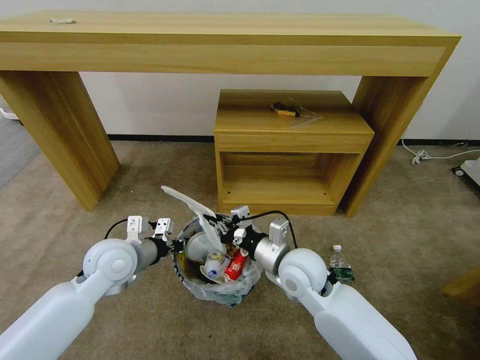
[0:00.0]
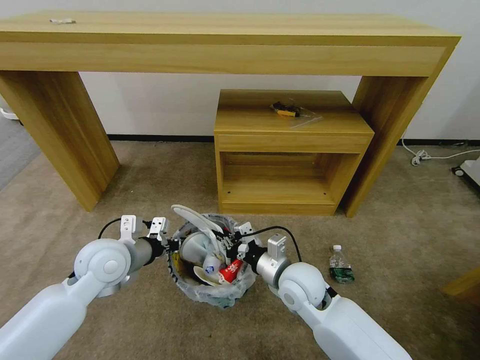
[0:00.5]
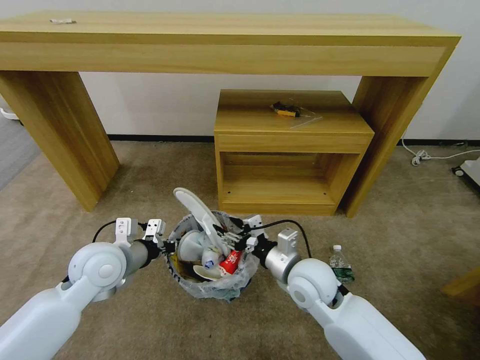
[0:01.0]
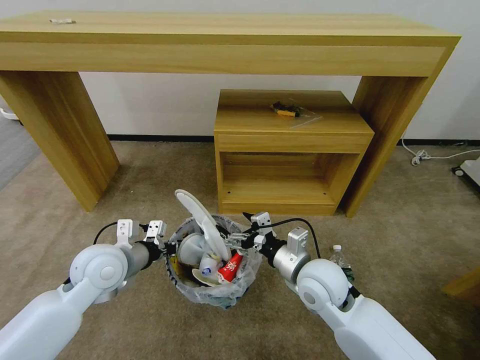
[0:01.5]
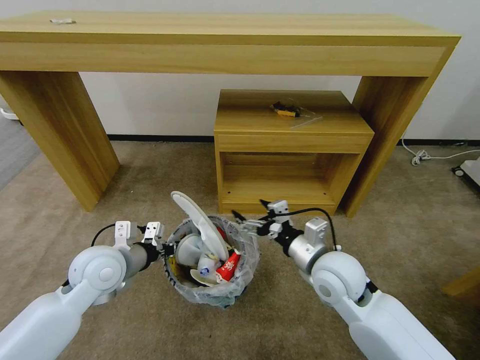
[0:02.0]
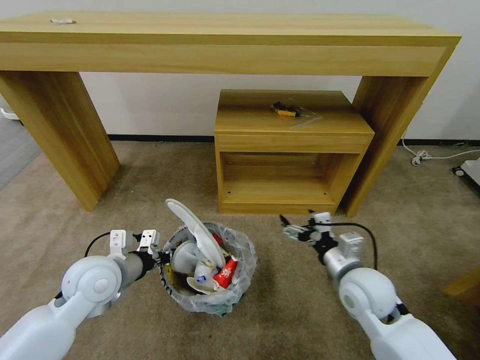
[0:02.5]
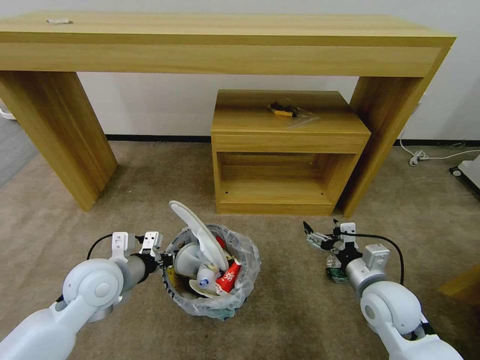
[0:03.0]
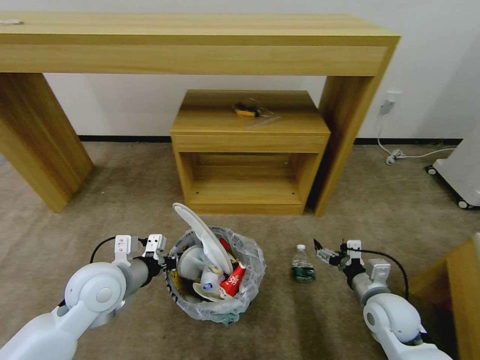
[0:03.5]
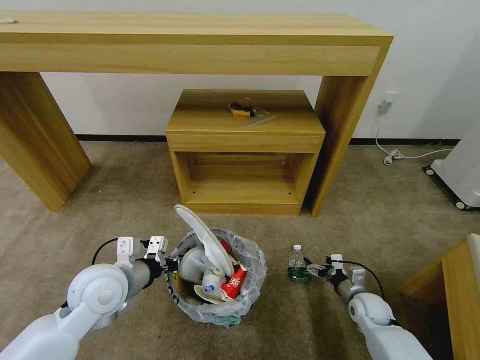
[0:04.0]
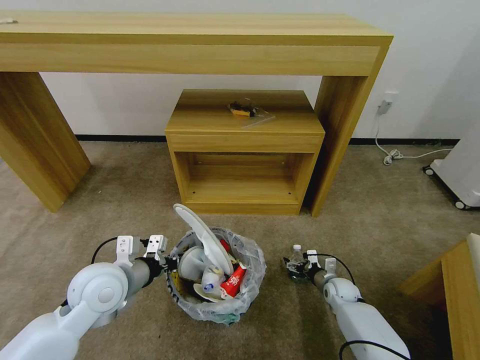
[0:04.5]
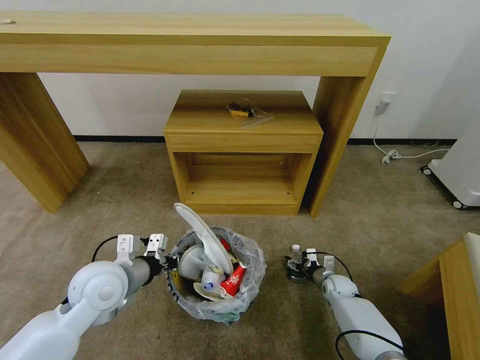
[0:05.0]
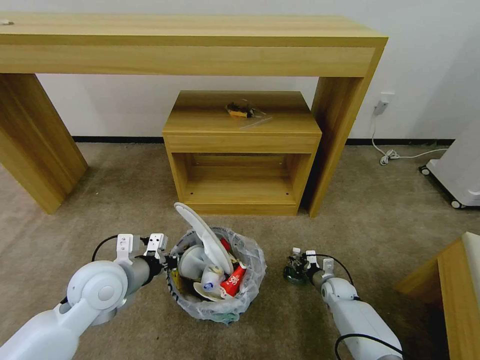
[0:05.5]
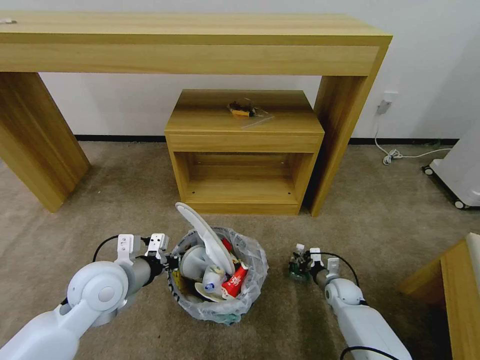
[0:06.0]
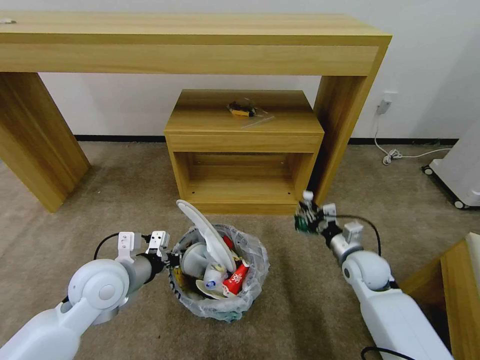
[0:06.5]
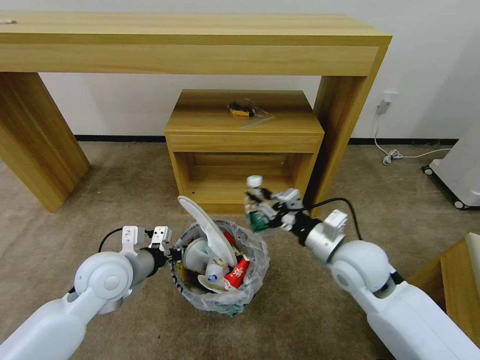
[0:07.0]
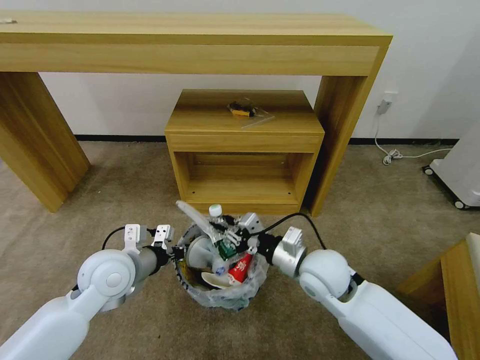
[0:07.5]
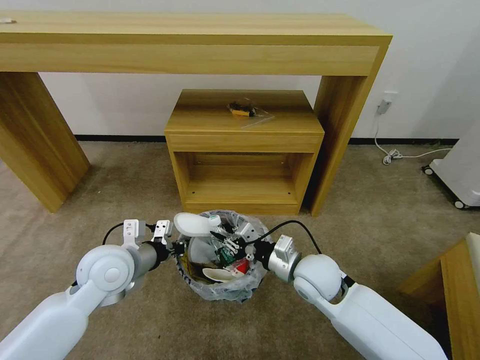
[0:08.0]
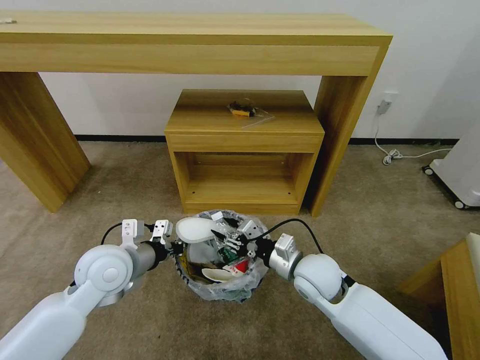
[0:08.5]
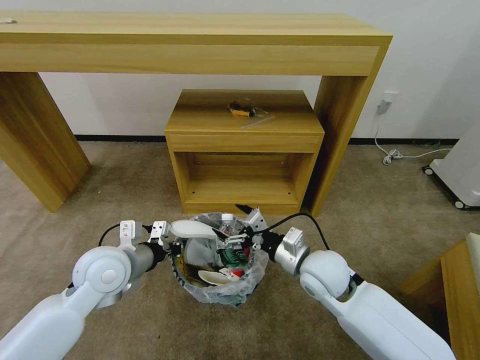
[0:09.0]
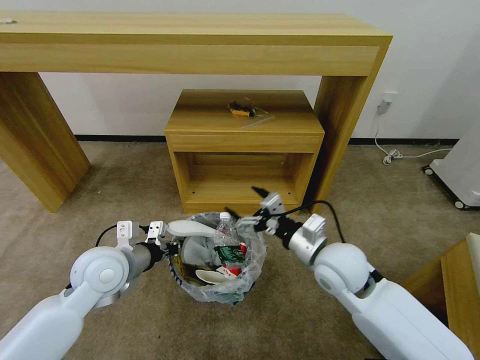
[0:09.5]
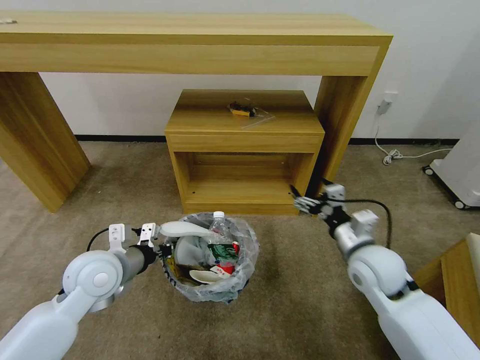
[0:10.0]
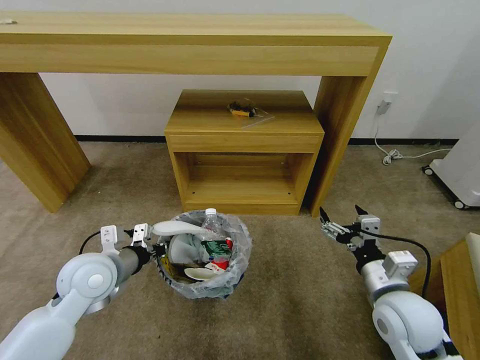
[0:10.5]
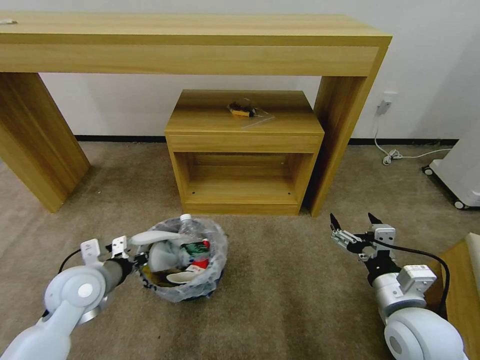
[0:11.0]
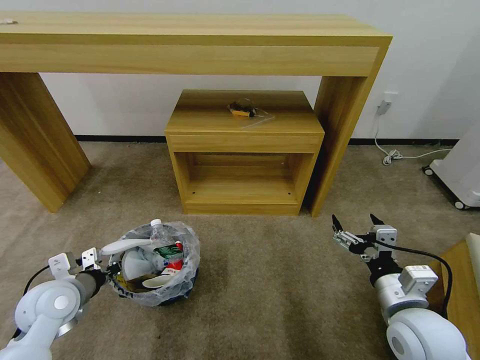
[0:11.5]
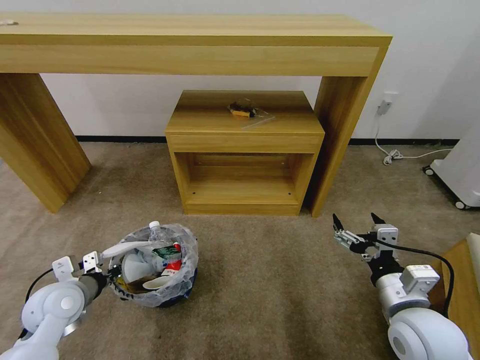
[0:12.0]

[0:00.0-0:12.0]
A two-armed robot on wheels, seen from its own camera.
Task of the whole recording: Pick up the trash bin and place the garbage on the floor into it.
0.0 to 2.0 s: The right gripper shifts some 5 cm to the right, and opens its fingers.
2.0 to 4.0 s: The right gripper heads downward and to the right, covering approximately 30 cm.
4.0 to 6.0 s: The right gripper heads forward, covering some 5 cm, and closes.
6.0 to 8.0 s: The right gripper travels upward and to the left by some 25 cm.
8.0 to 10.0 s: The right gripper is displaced to the right by about 10 cm, and opens up.
10.0 to 12.0 s: The right gripper heads backward, covering roughly 10 cm, while the left gripper moves to the left and downward, some 10 cm.

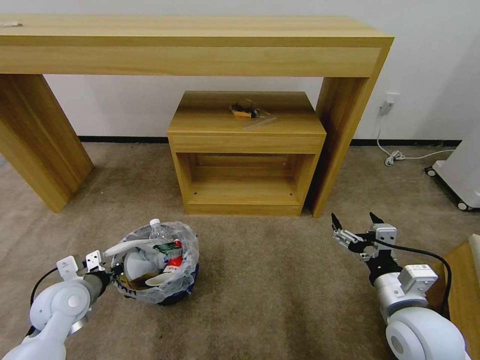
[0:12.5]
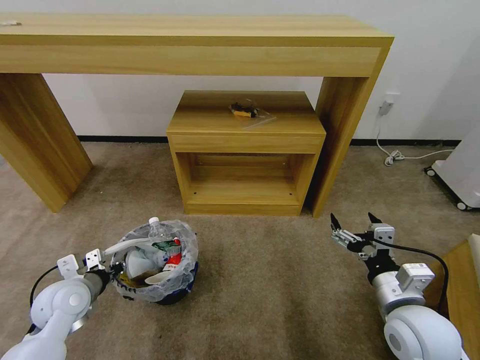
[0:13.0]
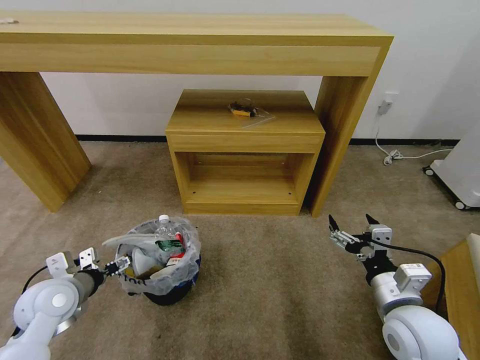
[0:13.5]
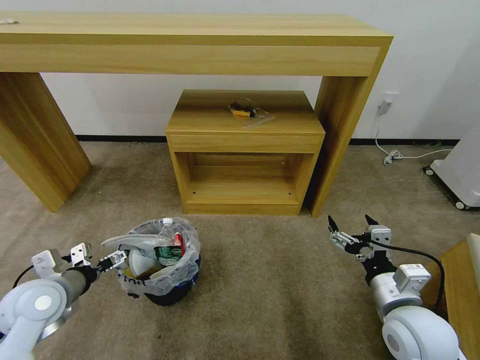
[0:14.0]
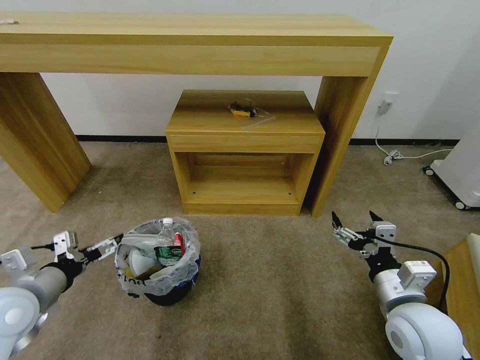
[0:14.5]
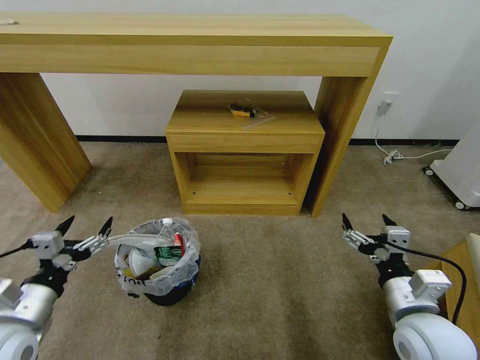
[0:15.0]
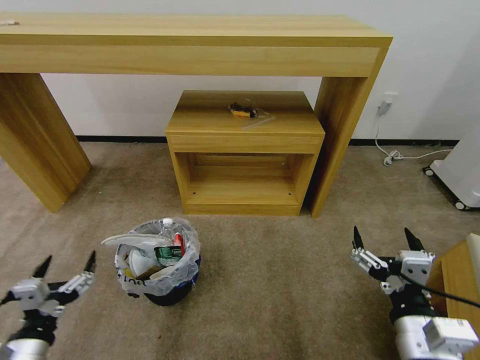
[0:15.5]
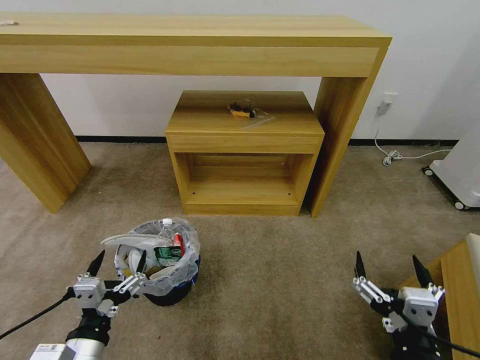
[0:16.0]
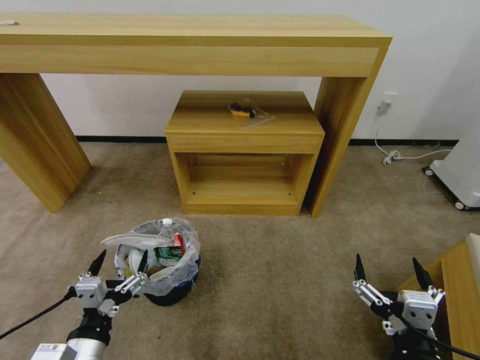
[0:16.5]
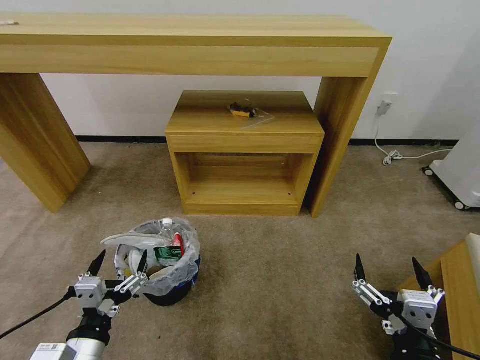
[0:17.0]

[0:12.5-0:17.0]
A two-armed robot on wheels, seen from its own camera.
Task of the whole recording: Pick up the trash bin and place the garbage on the floor into it.
12.5 to 14.5 s: The left gripper goes approximately 10 cm upward, and opens.
14.5 to 17.0 s: The right gripper travels backward and to the left by roughly 15 cm; the left gripper heads backward, to the right and downward, covering roughly 20 cm.

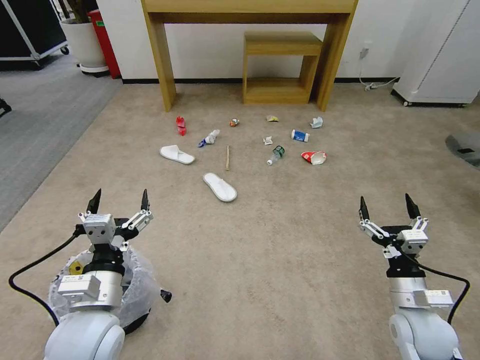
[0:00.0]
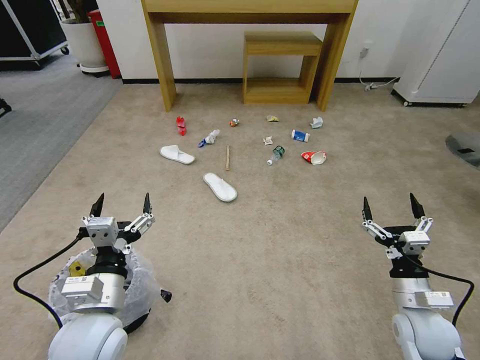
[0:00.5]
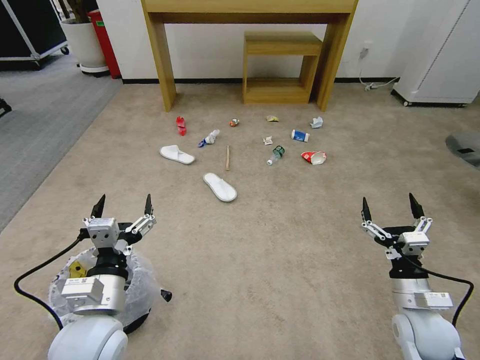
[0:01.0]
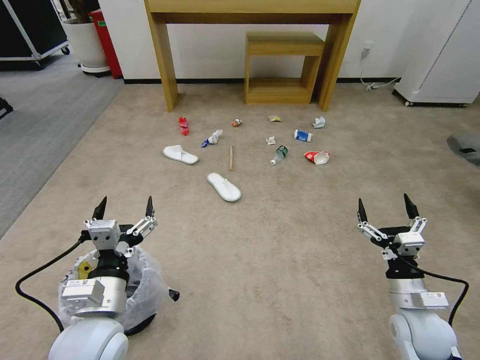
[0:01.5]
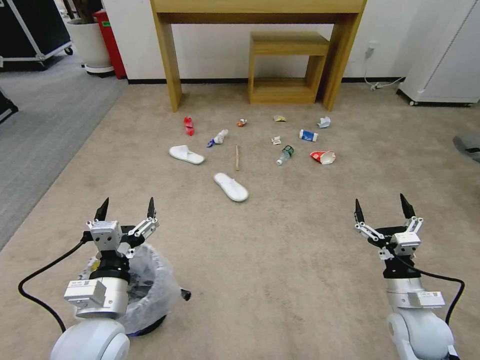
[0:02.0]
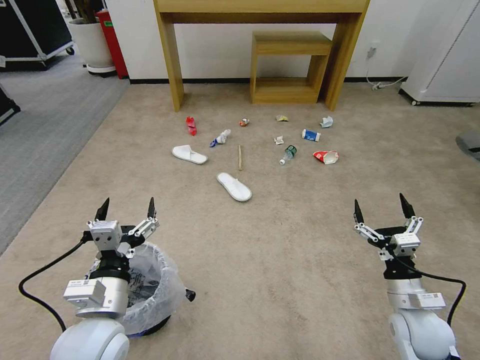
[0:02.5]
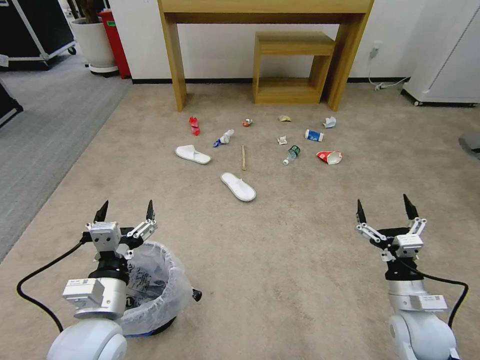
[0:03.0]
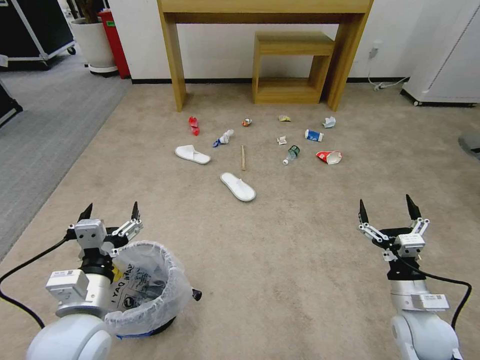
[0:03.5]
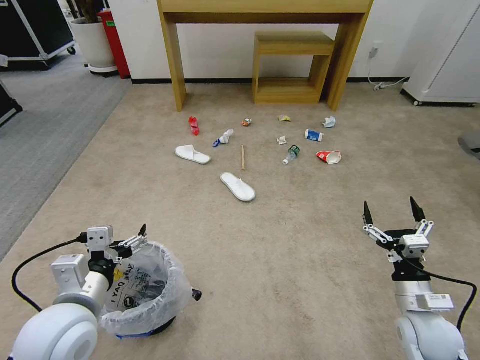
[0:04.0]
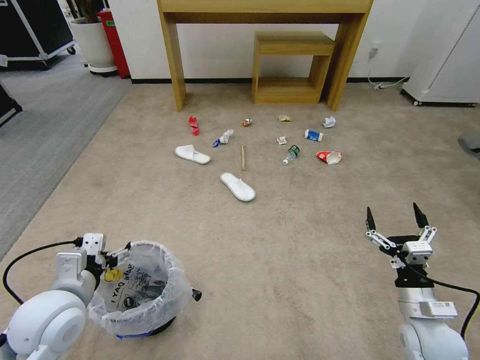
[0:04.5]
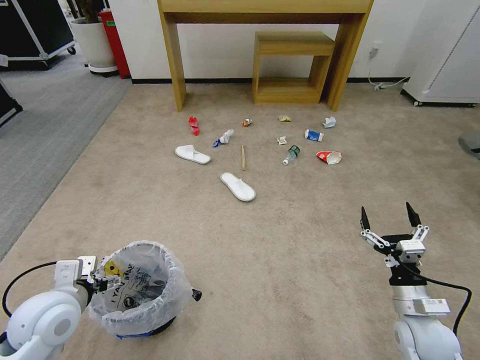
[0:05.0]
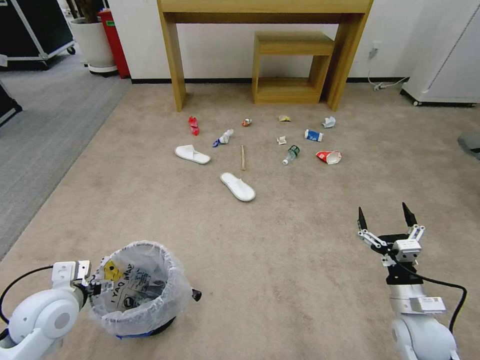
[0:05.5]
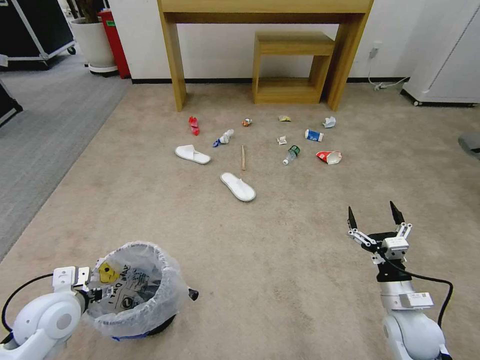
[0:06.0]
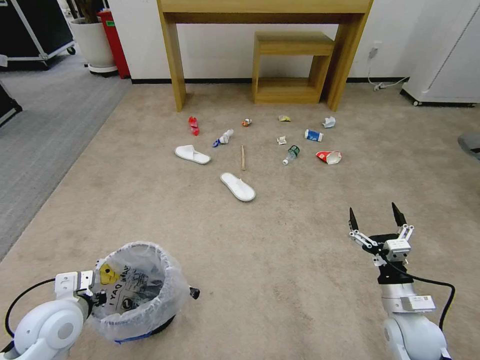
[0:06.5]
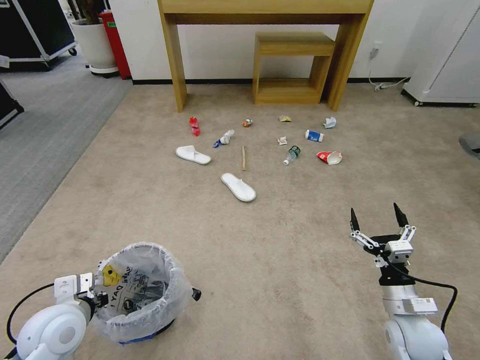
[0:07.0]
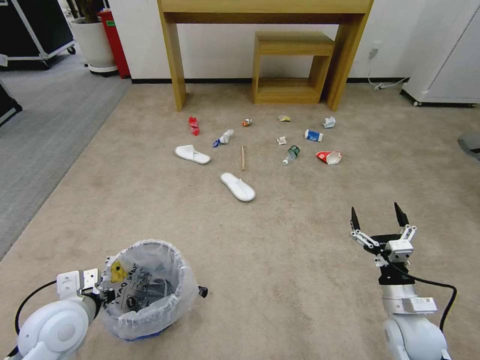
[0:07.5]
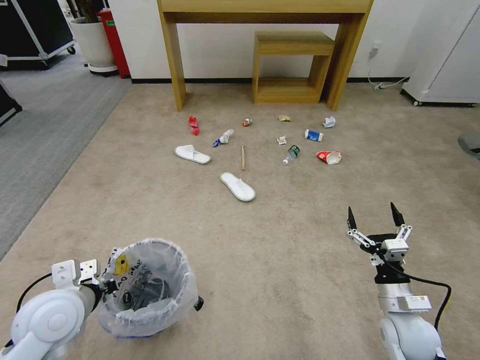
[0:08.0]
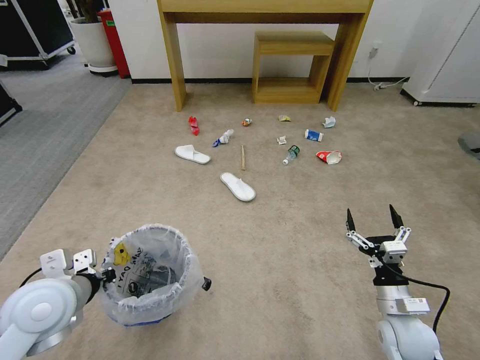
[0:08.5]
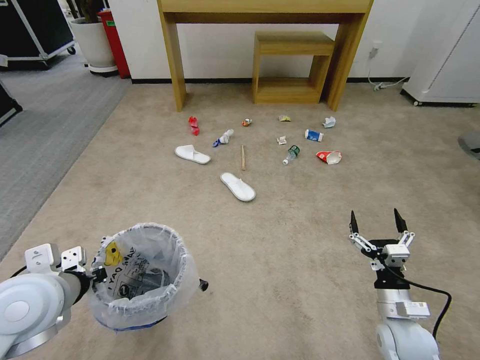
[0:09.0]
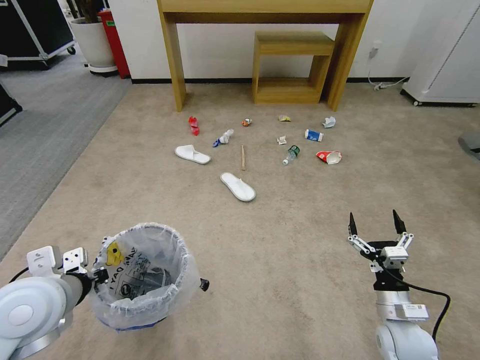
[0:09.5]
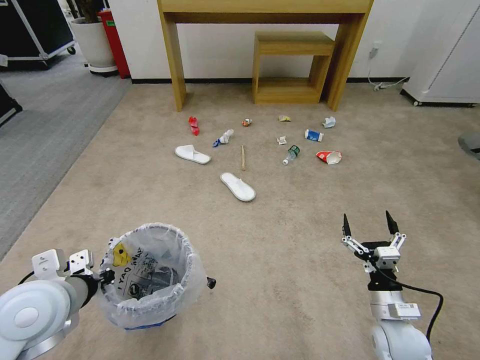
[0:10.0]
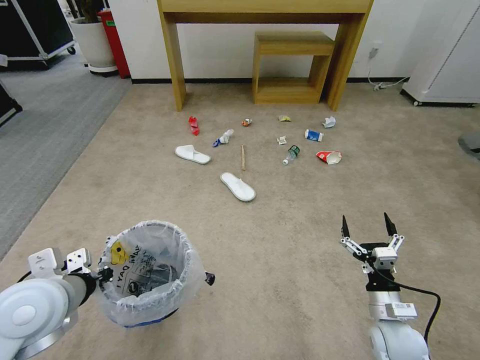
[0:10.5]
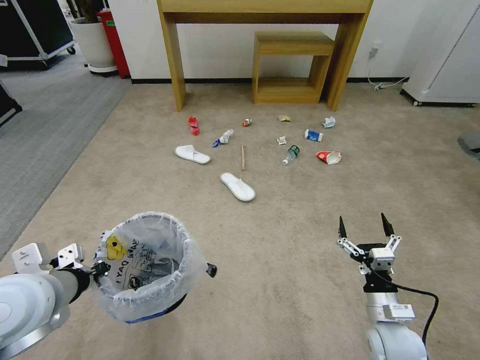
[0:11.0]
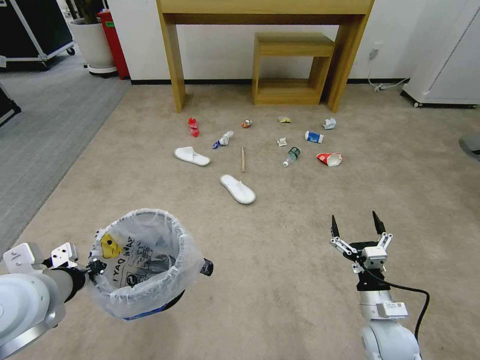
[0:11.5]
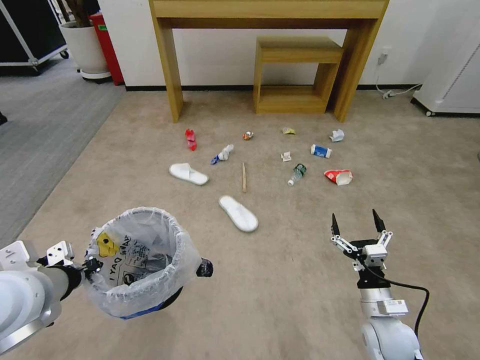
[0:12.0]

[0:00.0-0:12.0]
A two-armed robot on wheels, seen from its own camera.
Task of the whole recording: Pick up the trash bin and place the garbage on the floor into it.
4.0 to 6.0 s: The left gripper travels to the left, downward and forward by about 15 cm.
6.0 to 8.0 s: The left gripper moves about 5 cm, and closes up.
8.0 to 10.0 s: The left gripper moves upward, roughly 5 cm.
